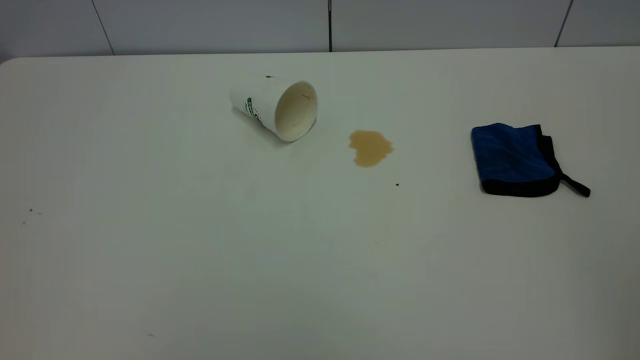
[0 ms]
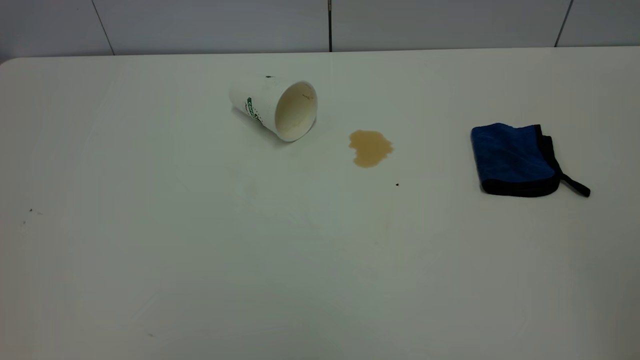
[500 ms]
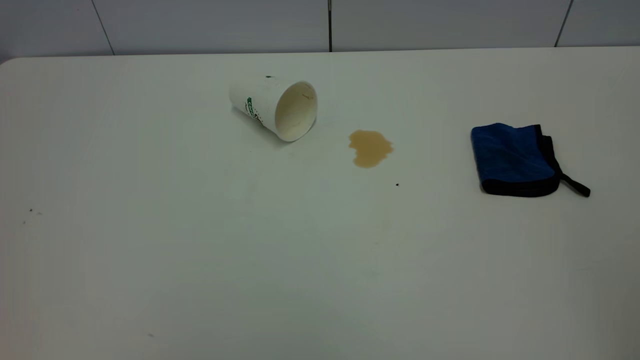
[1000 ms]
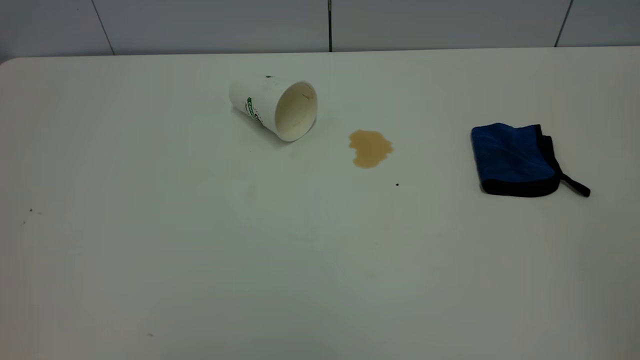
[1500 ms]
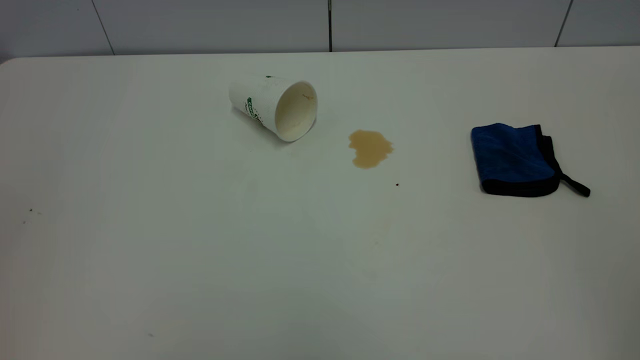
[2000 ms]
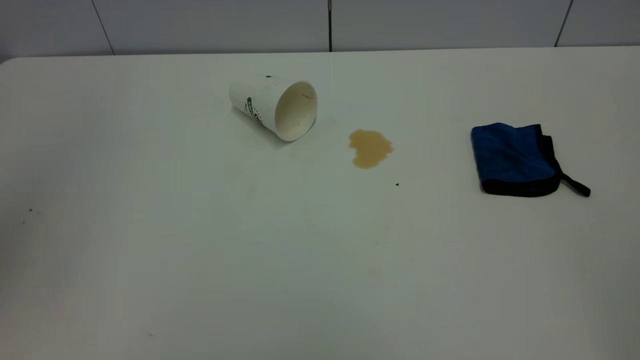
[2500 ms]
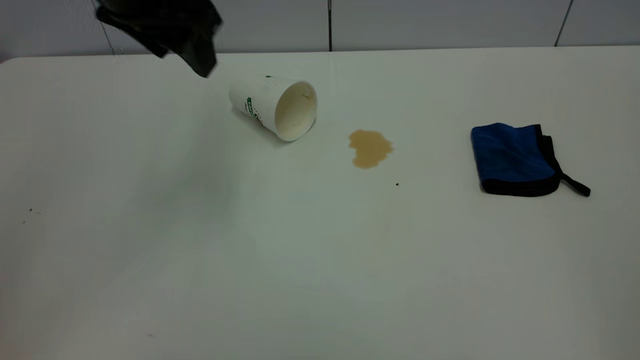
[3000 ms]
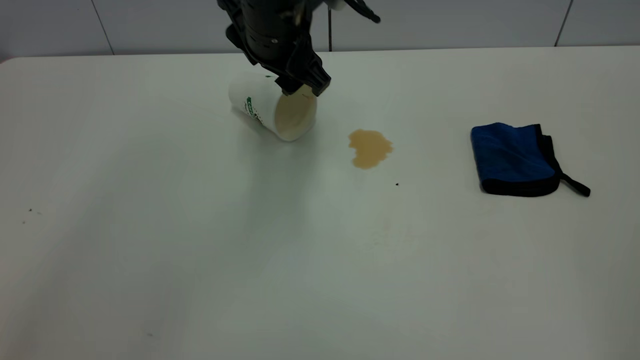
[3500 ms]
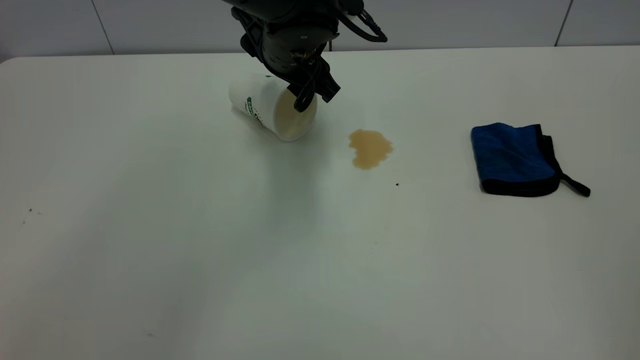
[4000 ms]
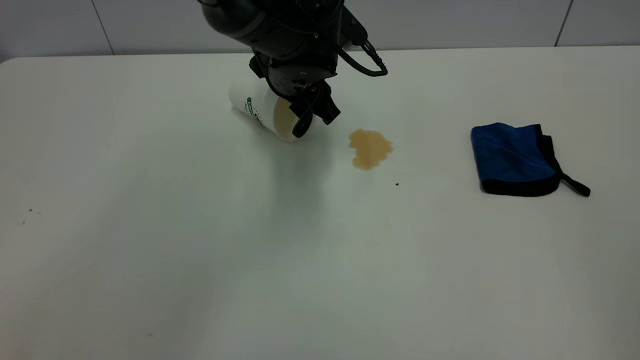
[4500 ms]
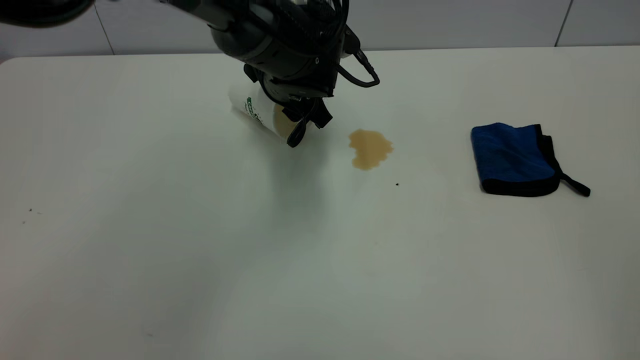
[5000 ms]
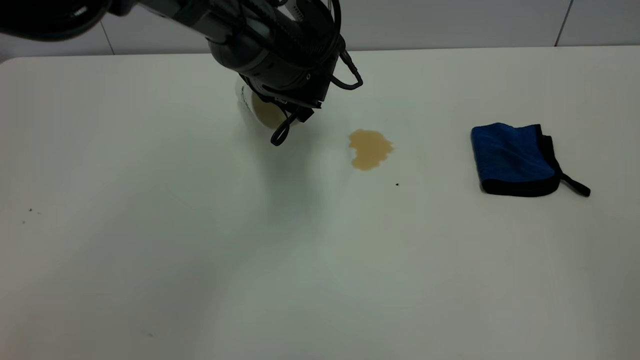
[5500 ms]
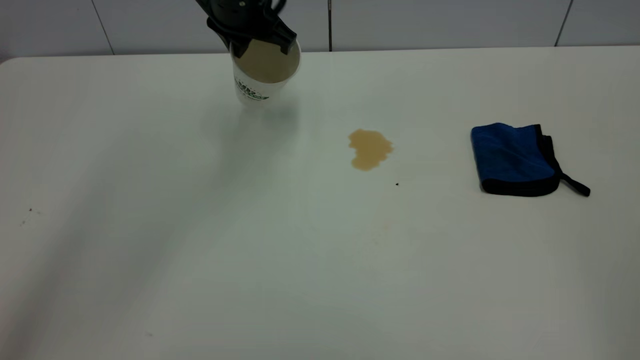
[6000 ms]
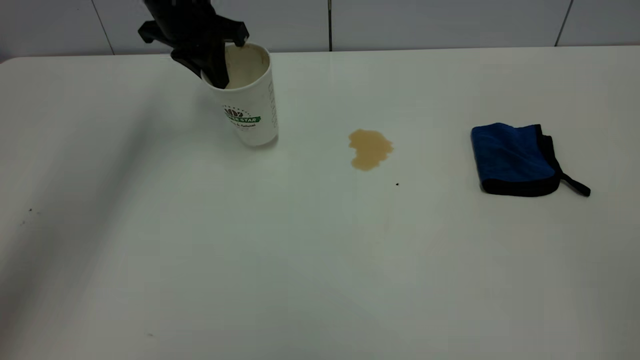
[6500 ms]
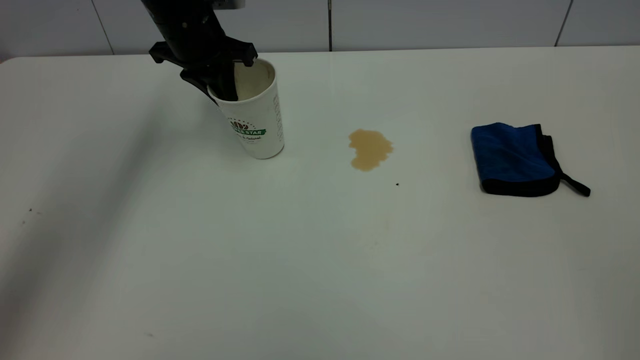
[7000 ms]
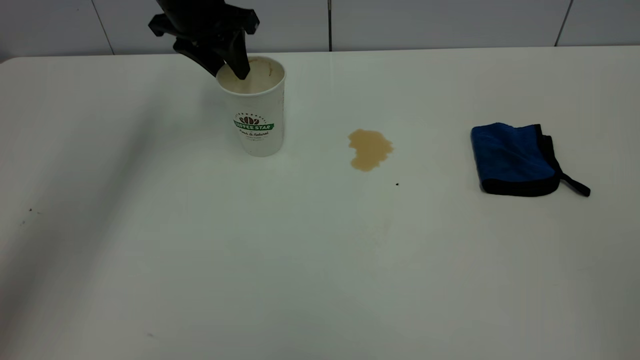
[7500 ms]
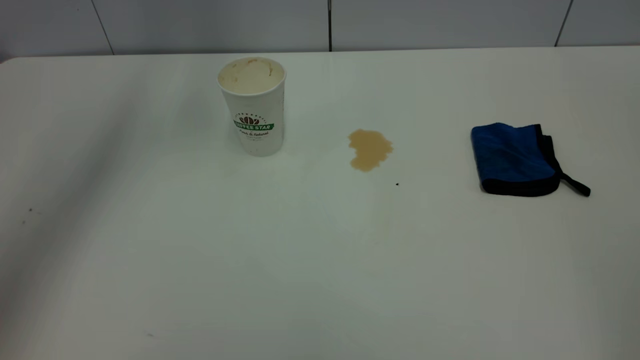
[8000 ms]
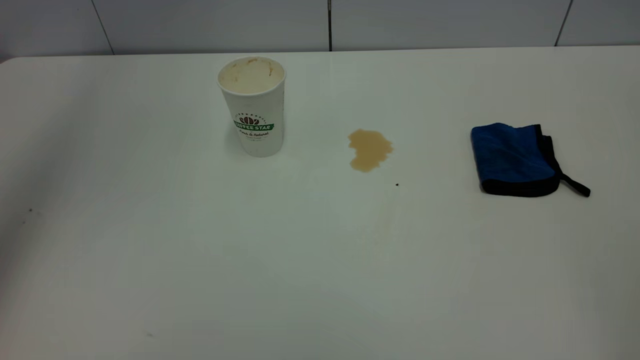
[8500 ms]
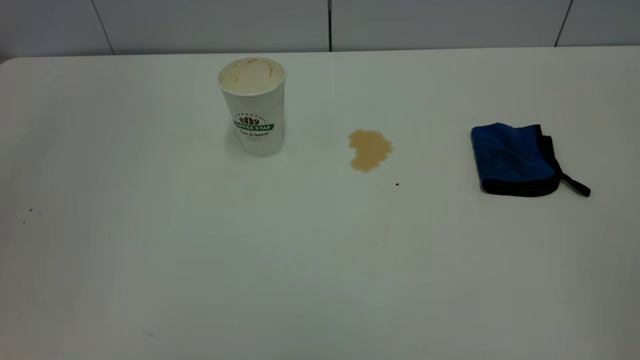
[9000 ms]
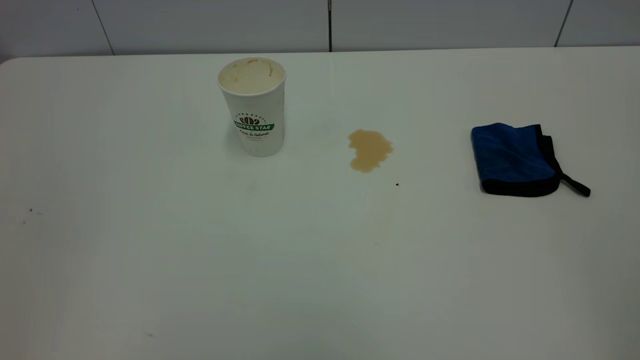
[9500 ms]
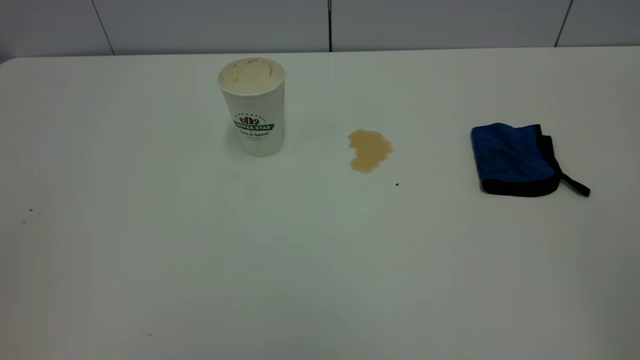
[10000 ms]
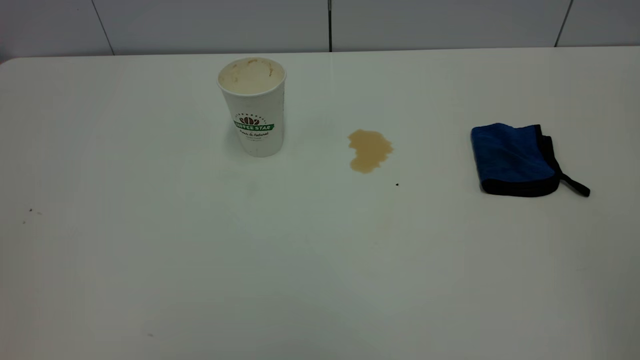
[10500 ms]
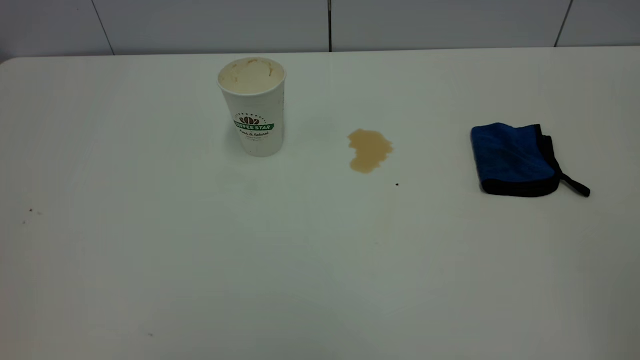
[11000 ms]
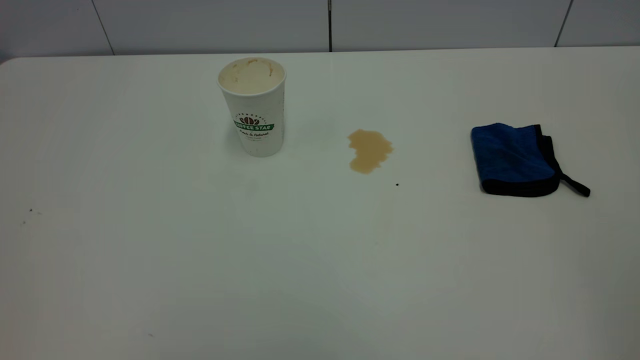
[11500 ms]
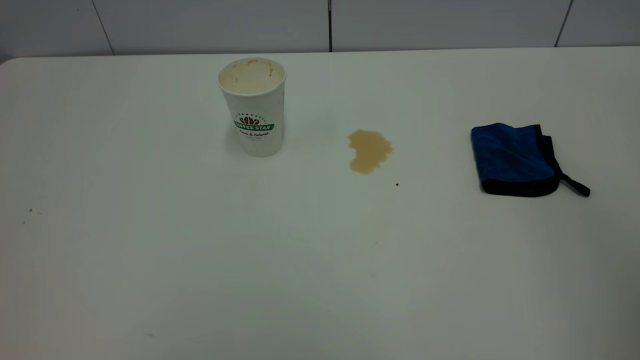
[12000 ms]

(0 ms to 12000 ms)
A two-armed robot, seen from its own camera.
Task of the whole recording: the left gripper pick up the fallen cup and place it upright, the right gripper grasp the blue rag and wipe the tea stain on the table, the right gripper put the blue rag back in its original position.
Step, 0 ms - 7500 ms: Stand the paper cup upright.
2000 ms - 4000 ms: The left gripper goes some 50 cm forward, to the right and downward.
4000 ms - 6000 ms: The left gripper is displaced to the left, forward and upward by about 10 cm, and closes.
6000 ms - 8000 ms: The left gripper is displaced upward and to the left by about 20 cm, and opens.
8000 ms - 10000 ms: The left gripper goes roughly 40 cm backward.

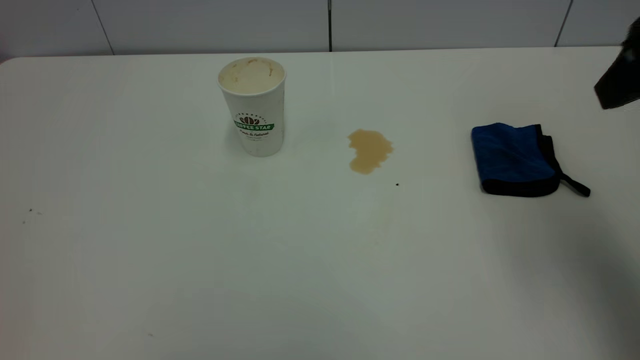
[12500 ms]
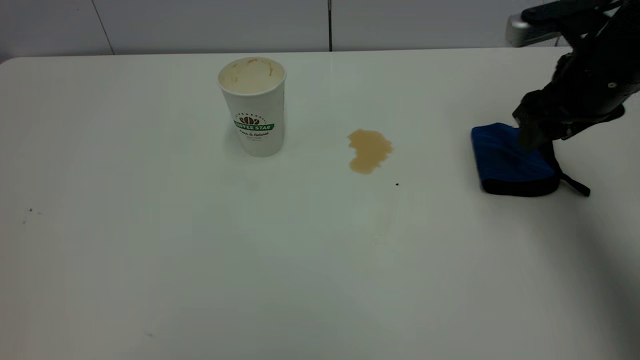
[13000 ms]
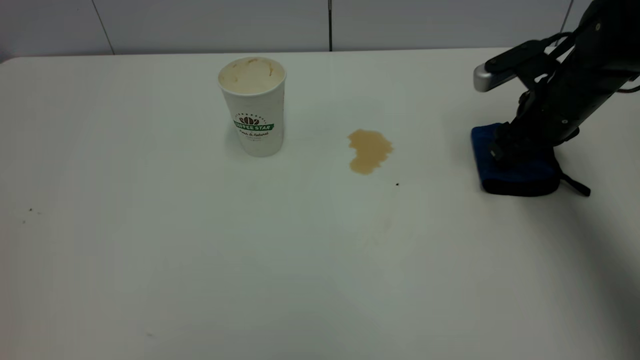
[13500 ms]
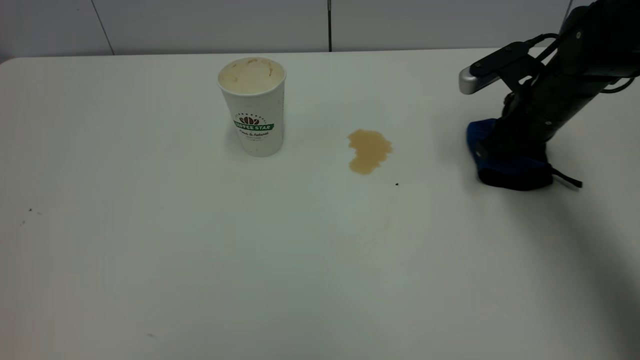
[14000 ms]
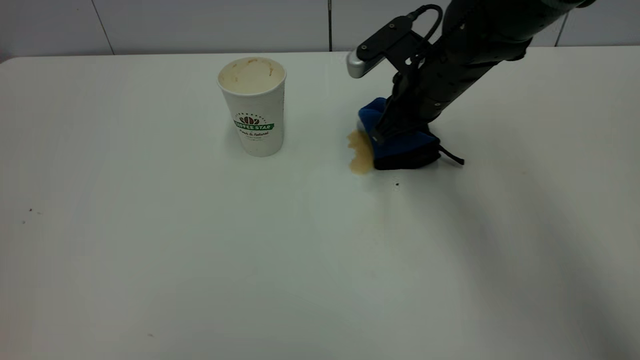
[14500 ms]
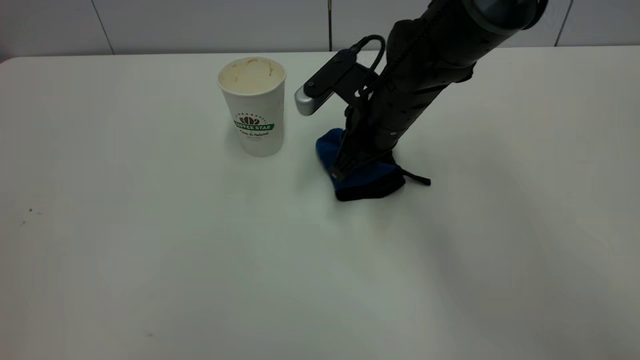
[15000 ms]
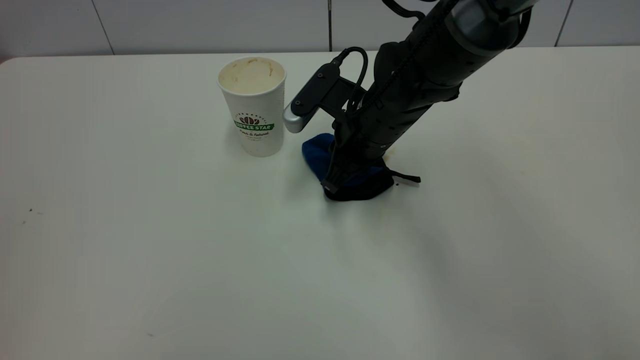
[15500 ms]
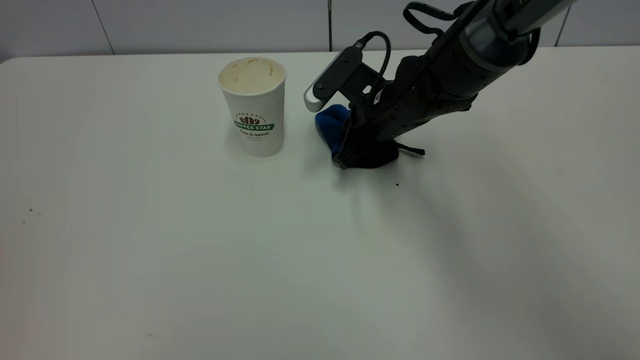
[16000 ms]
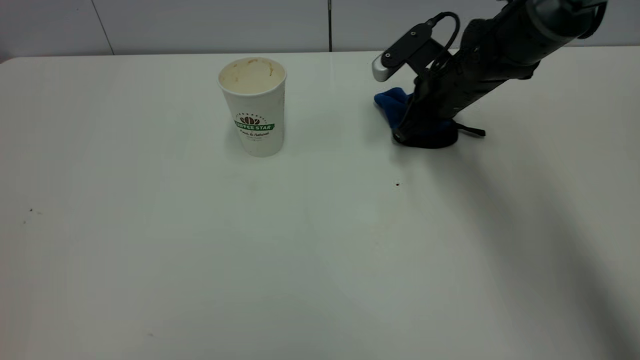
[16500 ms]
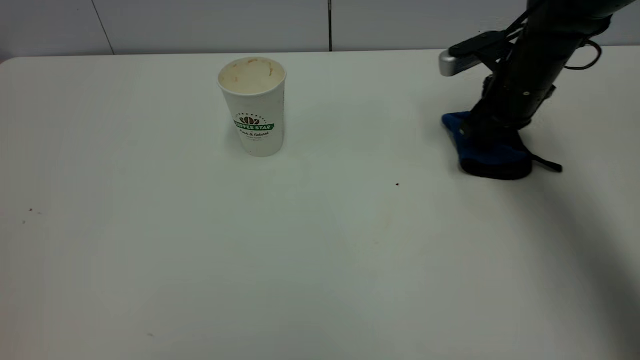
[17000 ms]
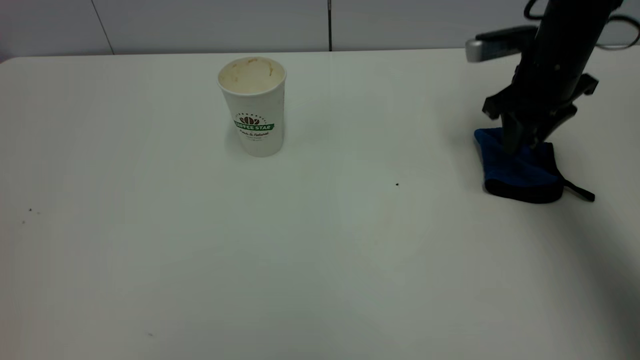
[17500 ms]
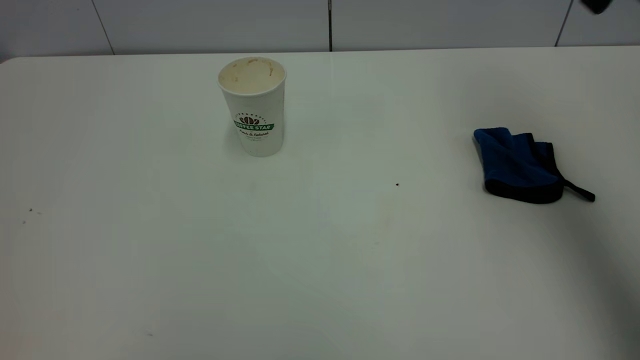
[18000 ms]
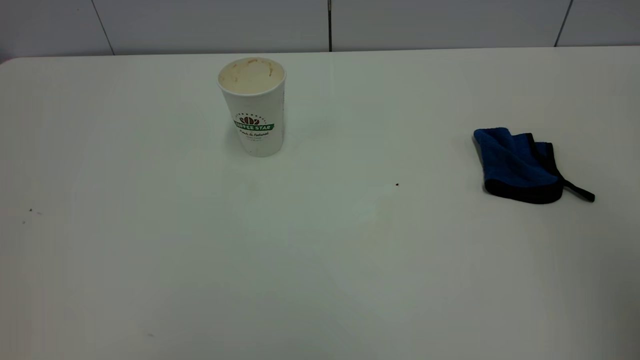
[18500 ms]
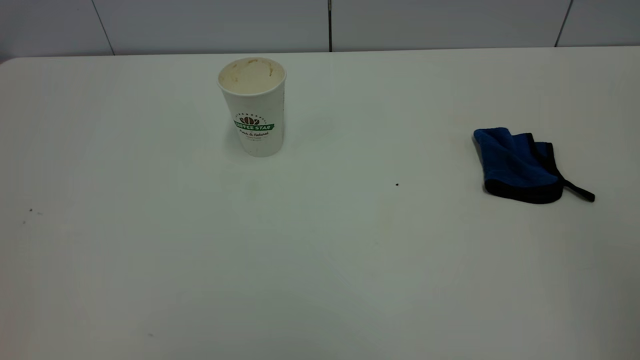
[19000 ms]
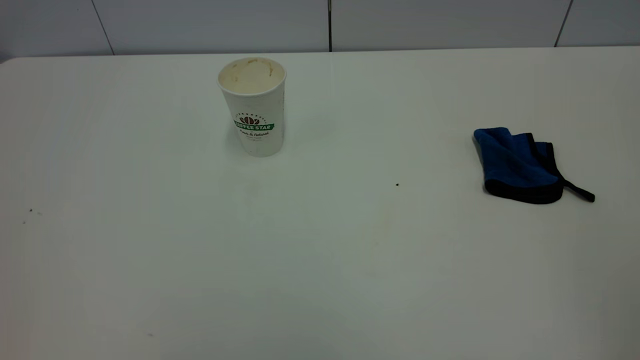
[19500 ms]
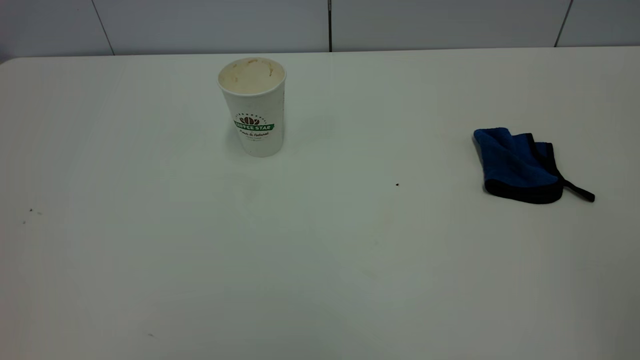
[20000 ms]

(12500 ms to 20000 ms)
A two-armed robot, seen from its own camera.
Task of the whole recording: the left gripper pick up the fallen cup and place it upright, the right gripper grasp the blue rag and wipe the tea stain on the table, the right gripper put the blue rag back in its original position.
Step, 12500 ms - 17500 ms: Wipe the stains off the table with a rag.
12500 ms - 14500 ms: The right gripper is displaced forward, downward and to the left by some 30 cm, and closes up.
14500 ms - 16500 ms: The right gripper shifts approximately 5 cm to the right.
16500 ms - 18000 ms: The right gripper travels upward and backward by about 35 cm, and opens its fingers.
18000 ms - 20000 ms: The right gripper is displaced backward by about 35 cm.
